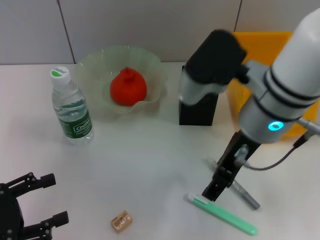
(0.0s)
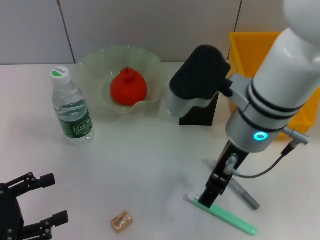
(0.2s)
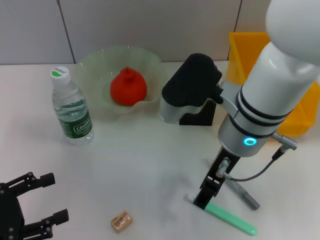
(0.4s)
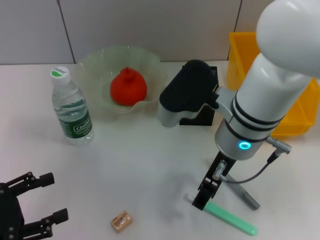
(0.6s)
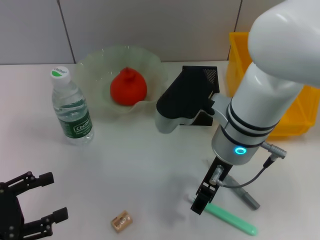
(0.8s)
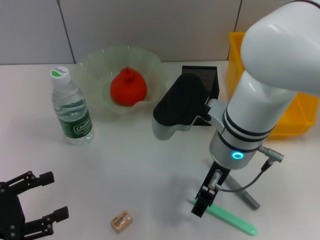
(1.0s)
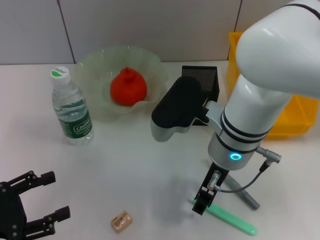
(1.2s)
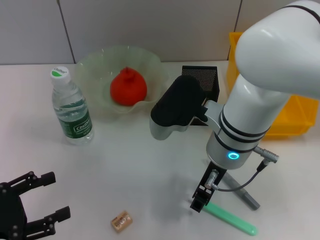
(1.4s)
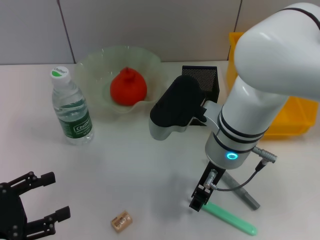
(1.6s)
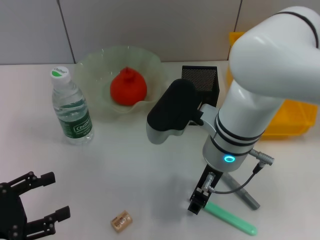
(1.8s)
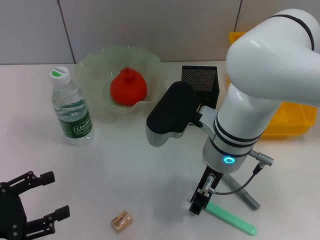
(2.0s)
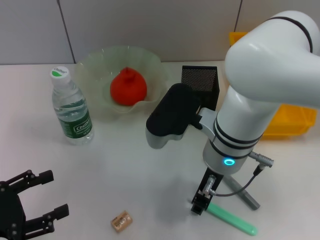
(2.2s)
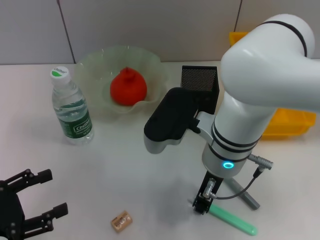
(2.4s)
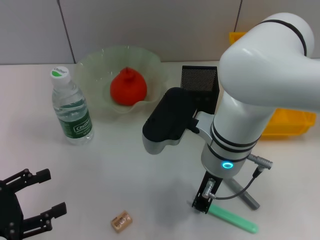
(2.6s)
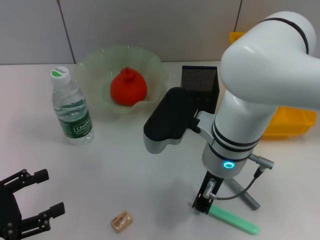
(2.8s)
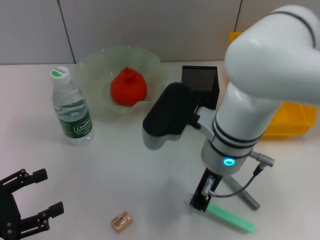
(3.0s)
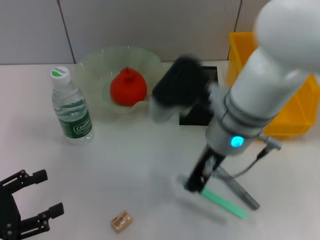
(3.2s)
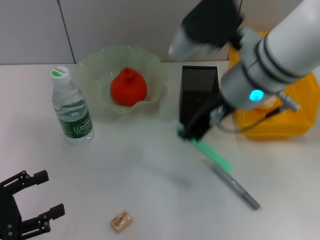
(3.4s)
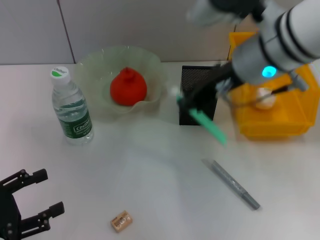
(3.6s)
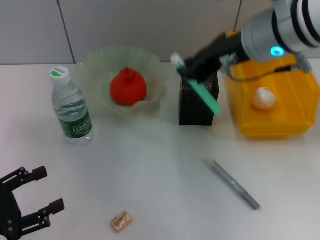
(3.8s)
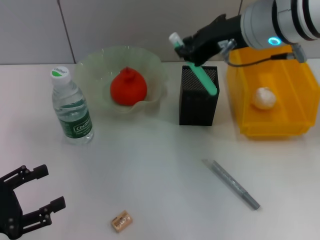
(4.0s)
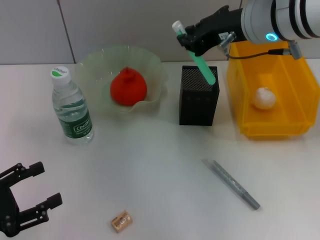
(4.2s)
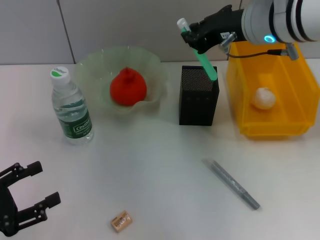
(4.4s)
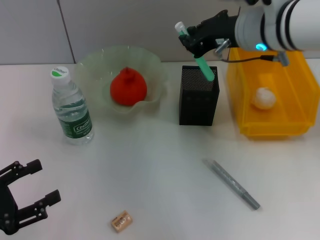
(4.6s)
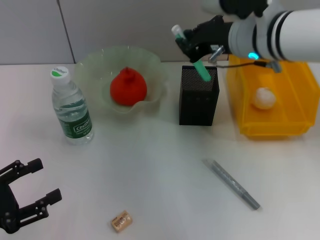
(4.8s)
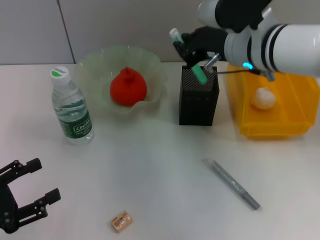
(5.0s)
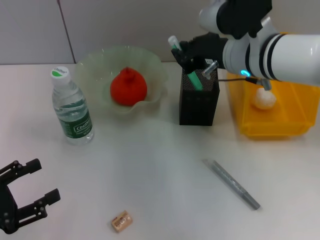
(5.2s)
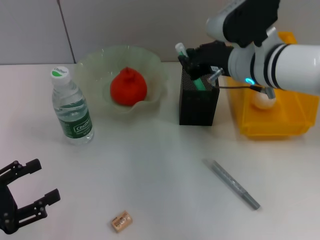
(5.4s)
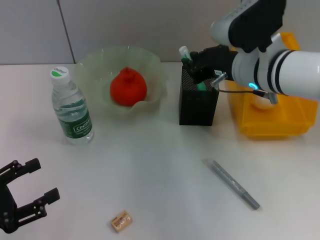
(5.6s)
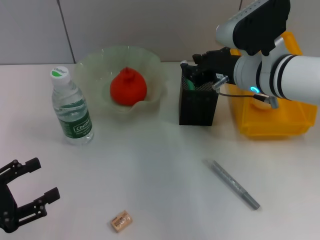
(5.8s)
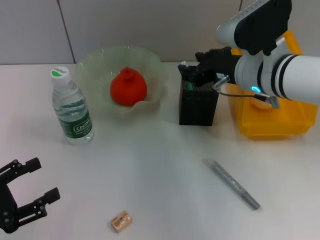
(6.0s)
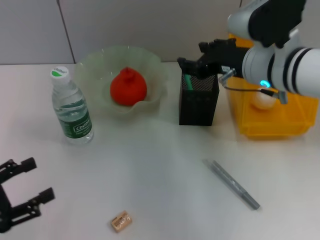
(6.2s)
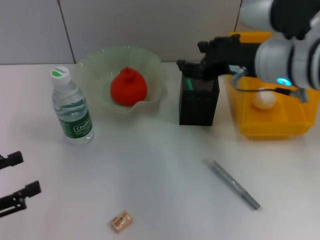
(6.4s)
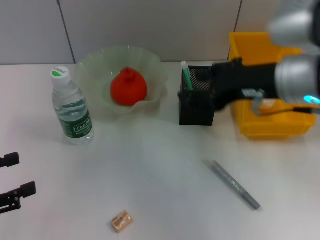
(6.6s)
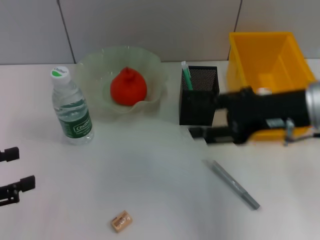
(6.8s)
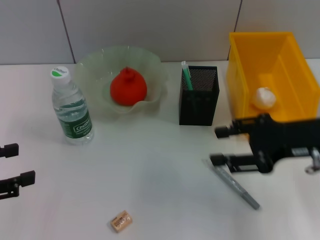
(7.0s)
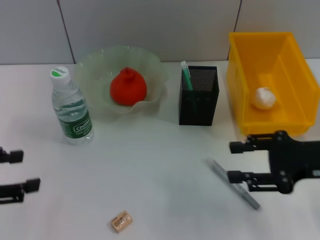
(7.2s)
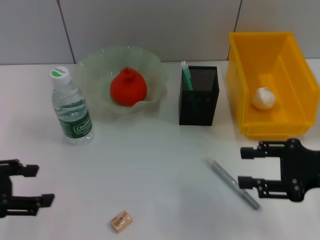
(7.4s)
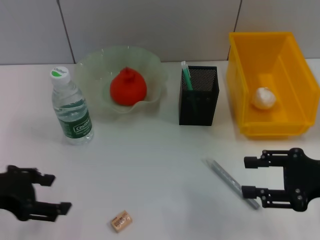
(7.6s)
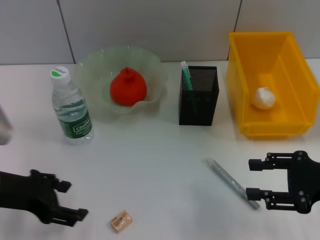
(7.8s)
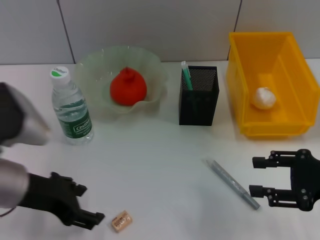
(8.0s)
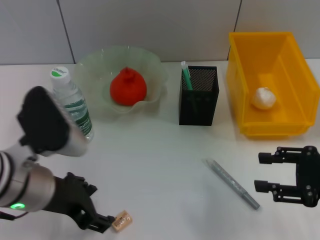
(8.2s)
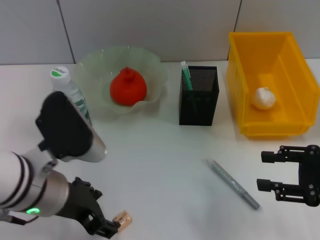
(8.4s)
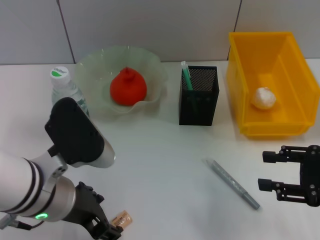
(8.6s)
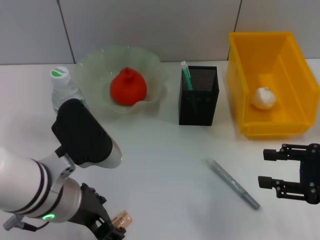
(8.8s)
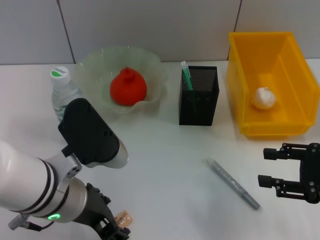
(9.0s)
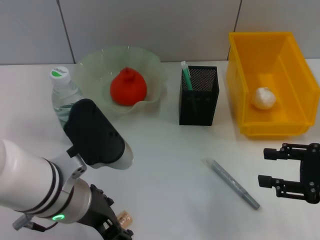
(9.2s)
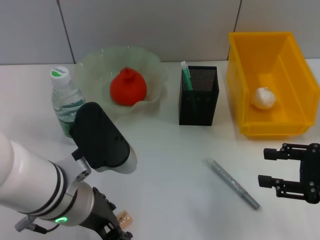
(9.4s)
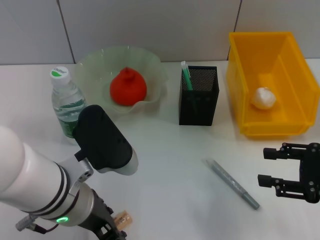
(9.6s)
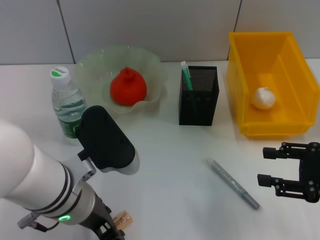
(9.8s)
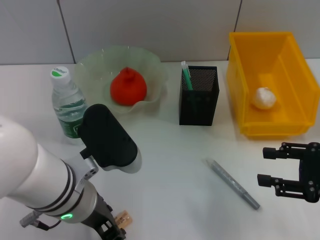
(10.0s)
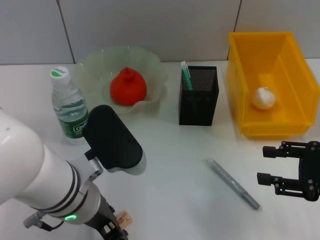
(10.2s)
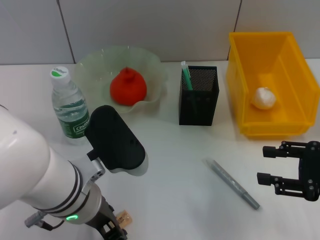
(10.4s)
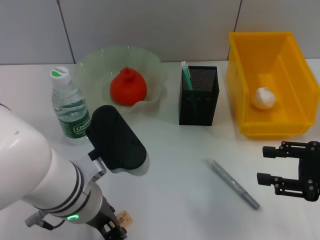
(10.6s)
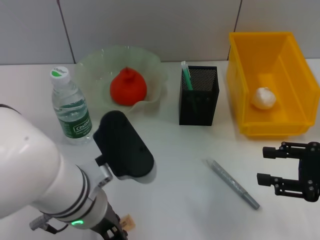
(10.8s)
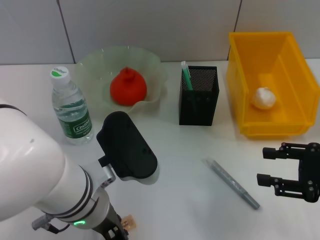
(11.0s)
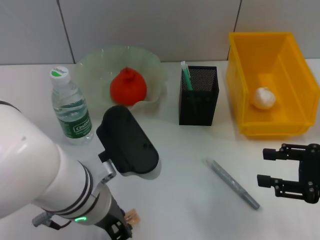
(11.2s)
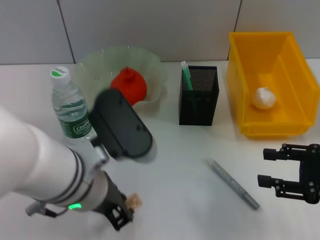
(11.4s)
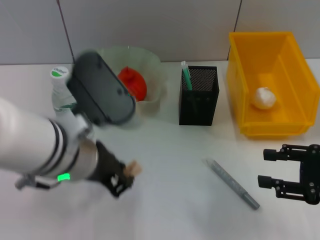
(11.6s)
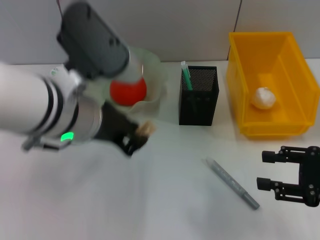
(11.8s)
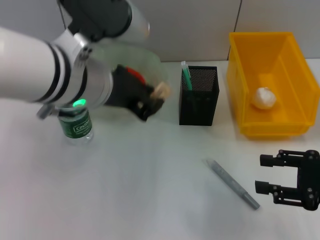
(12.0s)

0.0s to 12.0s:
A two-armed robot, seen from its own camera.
Step, 0.0s to 2.6s: Grab the blue utility knife with the right hand.
Step, 2.8s to 6.0s: Place the blue utility knife into the pen holder with the right hand.
Step, 6.2s to 10.8s: Grab the eraser with the left hand.
0.0s to 1.6s: The right gripper shifts about 5 cm downward, and closes.
1.6s to 3.0s: The right gripper closes its fingers.
3.0s to 4.4s: The right gripper travels upward, forward and to the right by some 15 cm.
4.4s to 6.0s: The right gripper heads downward, covering roughly 10 cm.
6.0s to 7.6s: The right gripper heads to the right and backward, covering some 20 cm, and opens, while the left gripper shifts some 10 cm upward and forward.
7.6s to 9.0s: The left gripper shifts some 15 cm to the right.
9.0s to 10.4s: The left gripper closes its fingers.
10.4s to 12.0s: The left gripper heads upward and forward, covering some 15 cm.

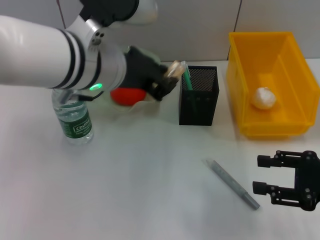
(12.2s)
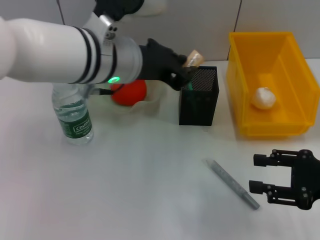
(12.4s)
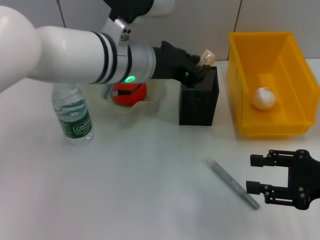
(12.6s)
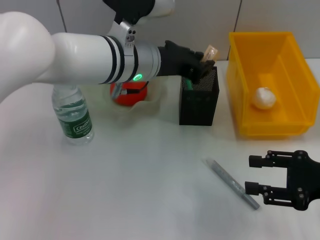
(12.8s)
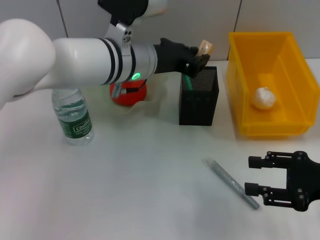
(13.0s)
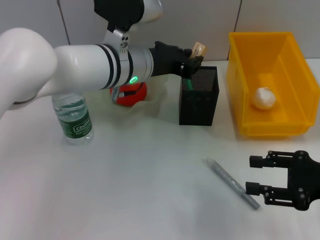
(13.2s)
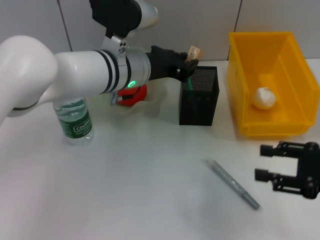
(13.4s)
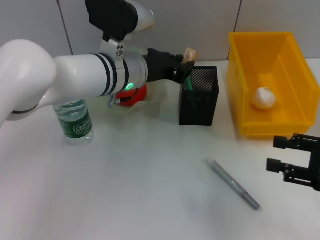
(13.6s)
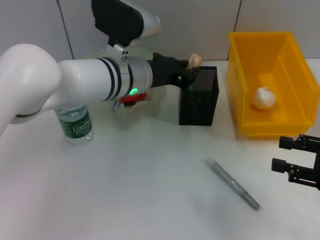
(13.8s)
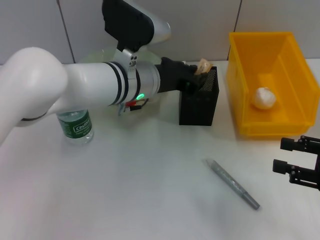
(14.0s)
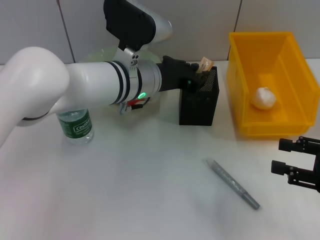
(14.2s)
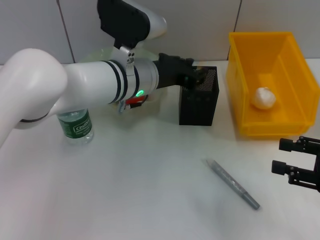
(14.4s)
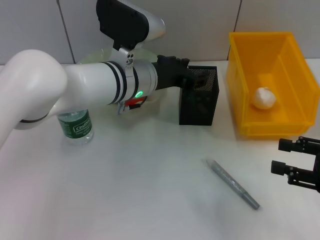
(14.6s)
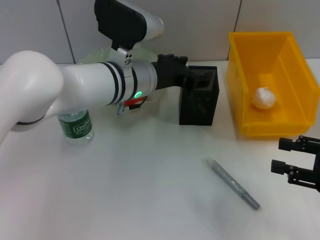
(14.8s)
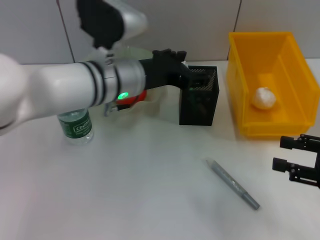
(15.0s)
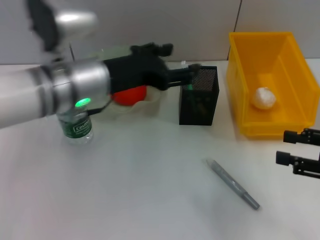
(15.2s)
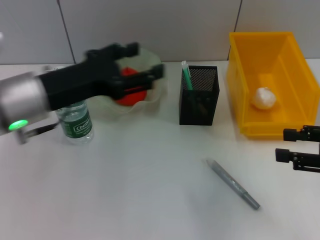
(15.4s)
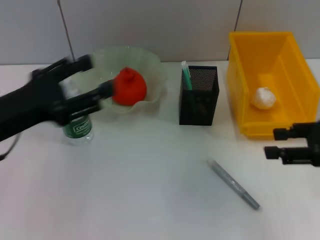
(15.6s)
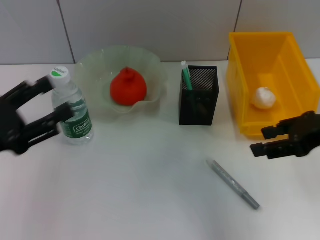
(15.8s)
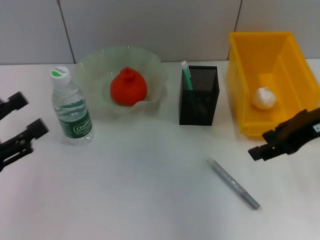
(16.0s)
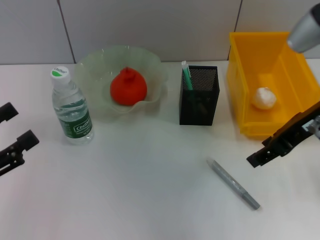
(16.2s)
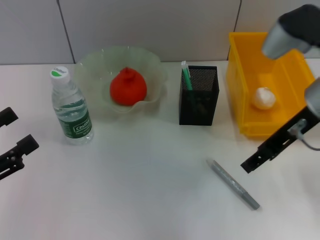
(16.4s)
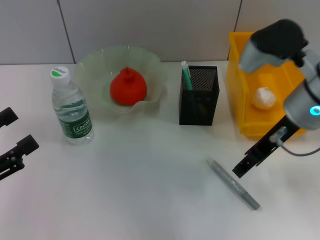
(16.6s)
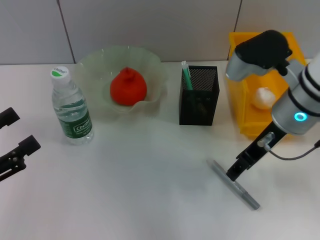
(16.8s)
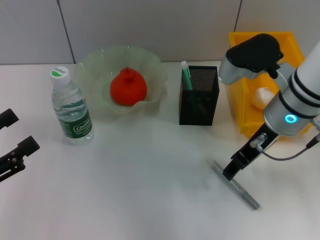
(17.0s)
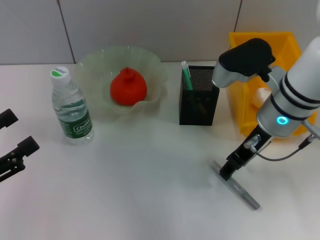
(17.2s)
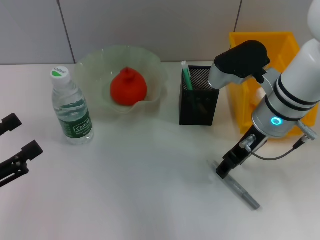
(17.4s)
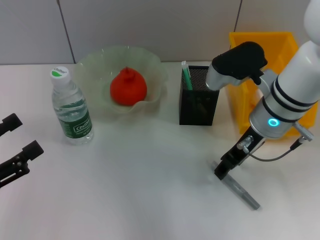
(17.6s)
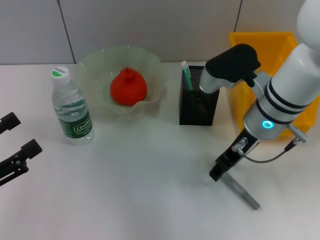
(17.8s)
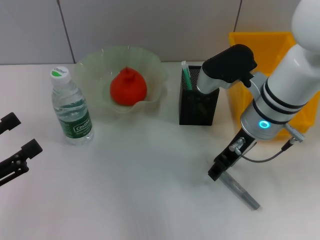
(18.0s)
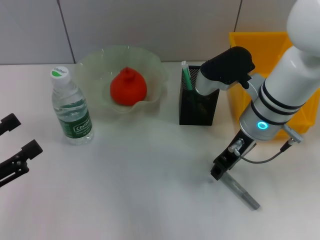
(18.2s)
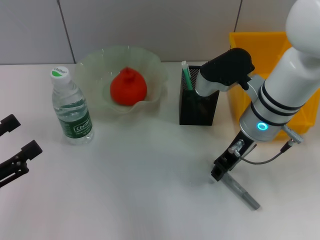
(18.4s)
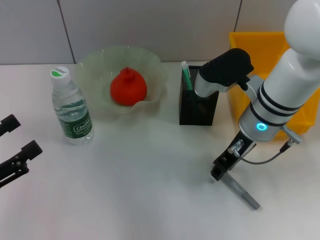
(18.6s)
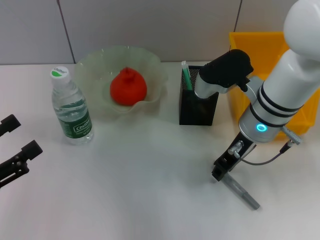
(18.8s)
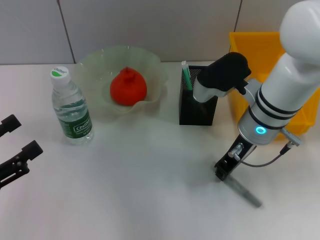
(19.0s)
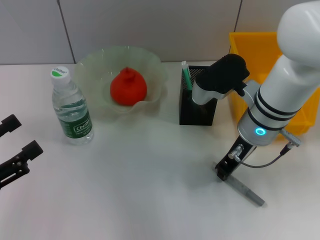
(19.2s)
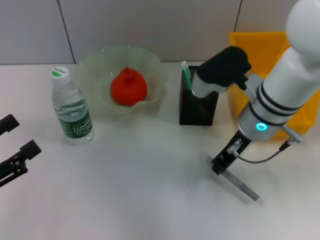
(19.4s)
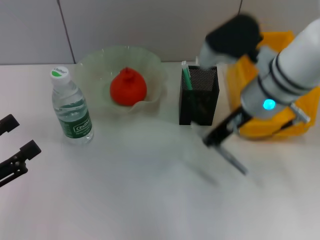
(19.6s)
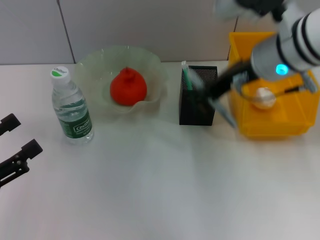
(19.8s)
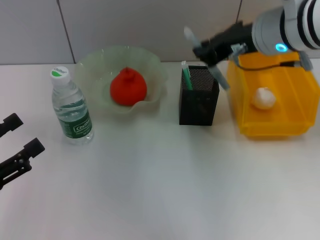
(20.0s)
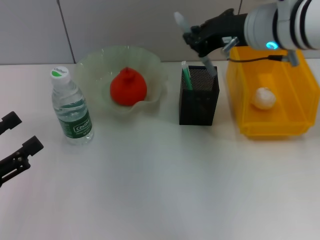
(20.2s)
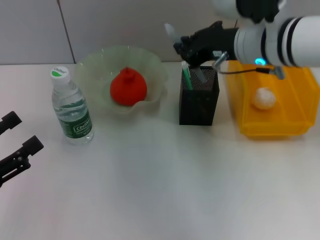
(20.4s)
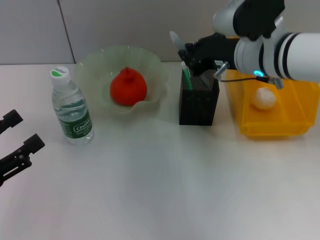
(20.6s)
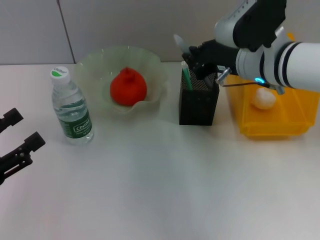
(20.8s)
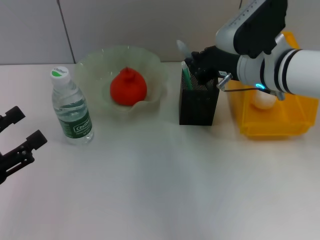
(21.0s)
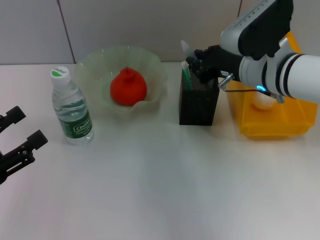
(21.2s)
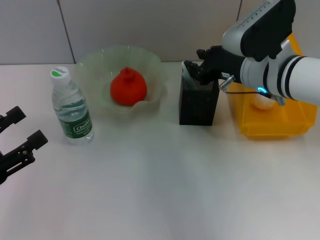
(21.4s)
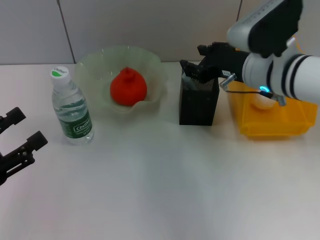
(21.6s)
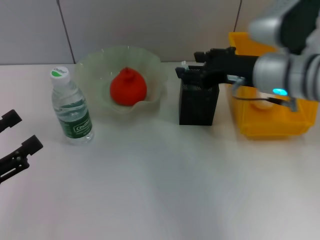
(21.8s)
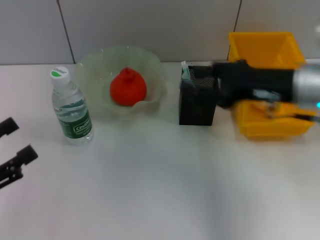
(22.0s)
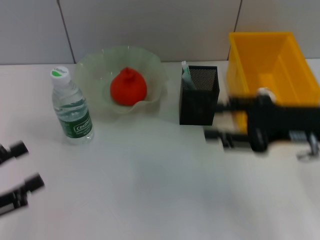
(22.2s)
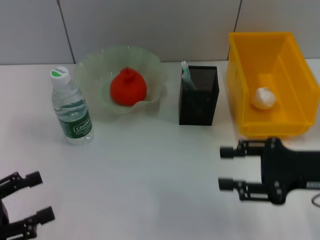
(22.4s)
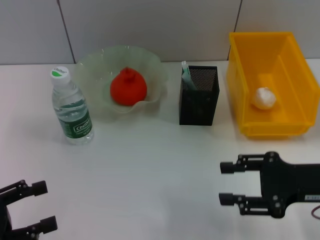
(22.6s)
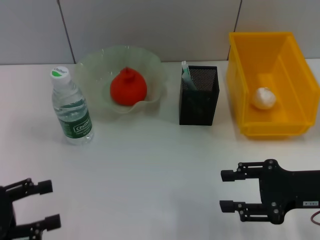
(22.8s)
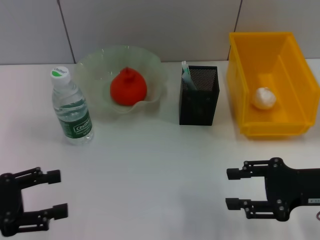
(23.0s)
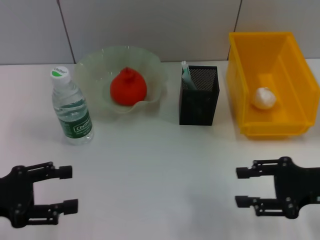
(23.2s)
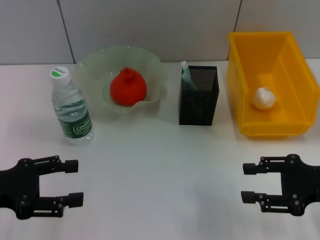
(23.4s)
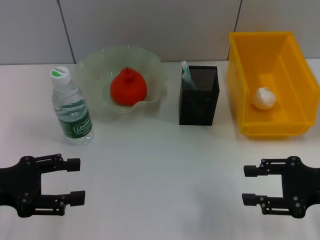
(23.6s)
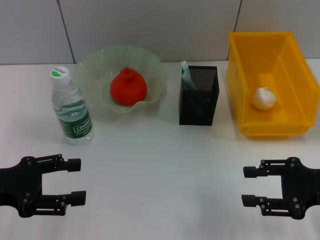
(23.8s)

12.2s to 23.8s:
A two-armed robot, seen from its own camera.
Step, 12.2s to 14.6s: Place the eraser into the pen holder with the left hand.
Step, 14.8s to 19.0s: Grab the gray glue with the right hand.
Step, 19.2s to 21.6s: Place the gray glue into the pen holder with the right hand.
12.2s to 13.6s: The left gripper goes some 10 cm downward and forward.
13.6s to 15.0s: The left gripper opens.
15.0s to 16.6s: The left gripper is displaced to the left and backward by about 30 cm. The right gripper moves to the left, forward and upward, some 20 cm.
16.6s to 18.0s: The right gripper ends up some 5 cm from where it was.
18.0s to 19.4s: The right gripper closes.
19.4s to 21.0s: The right gripper goes upward and returns, some 10 cm each way.
21.0s to 22.4s: The right gripper goes about 20 cm backward and to the right, and opens up.
22.4s to 23.8s: The left gripper travels forward by roughly 10 cm.
